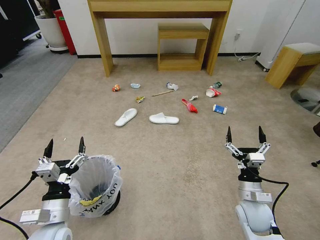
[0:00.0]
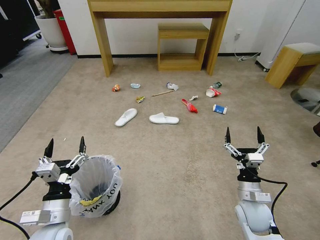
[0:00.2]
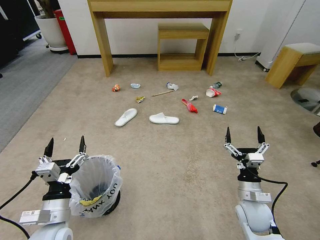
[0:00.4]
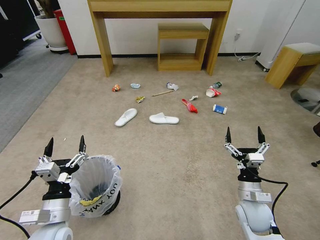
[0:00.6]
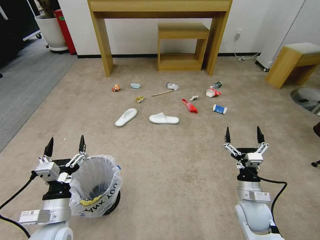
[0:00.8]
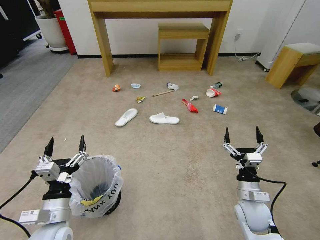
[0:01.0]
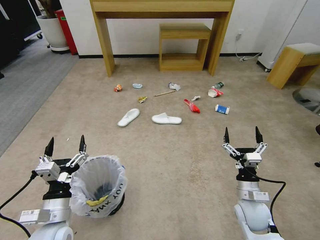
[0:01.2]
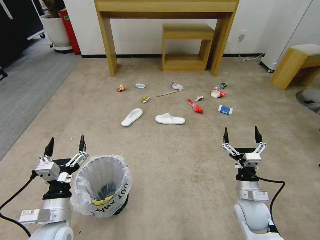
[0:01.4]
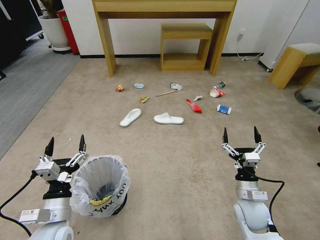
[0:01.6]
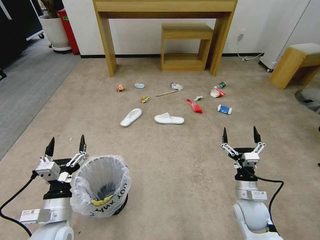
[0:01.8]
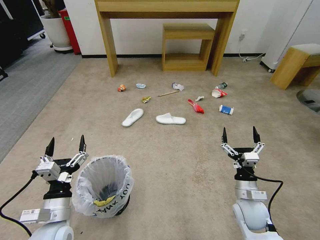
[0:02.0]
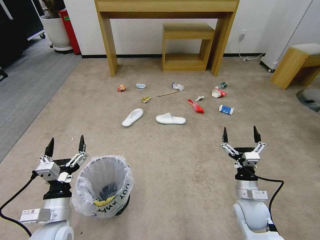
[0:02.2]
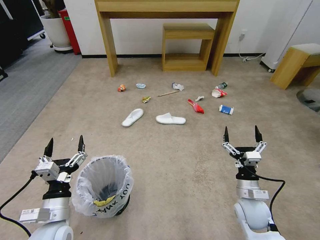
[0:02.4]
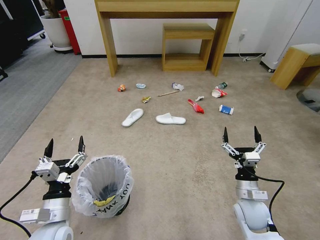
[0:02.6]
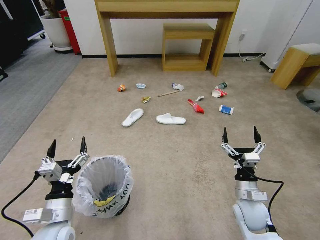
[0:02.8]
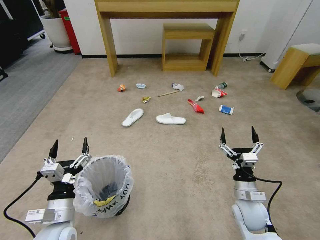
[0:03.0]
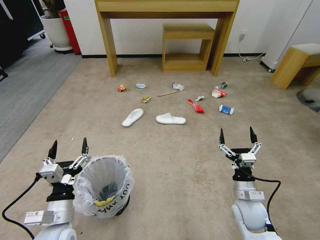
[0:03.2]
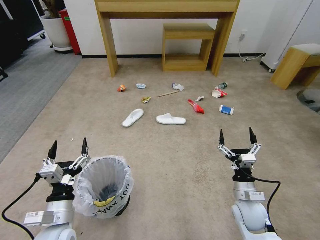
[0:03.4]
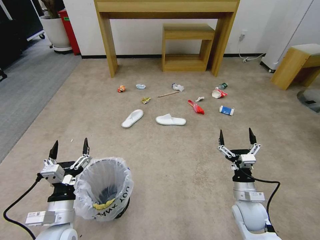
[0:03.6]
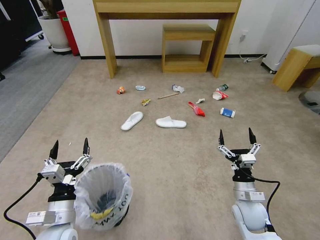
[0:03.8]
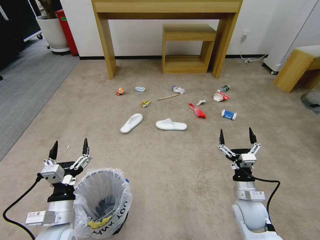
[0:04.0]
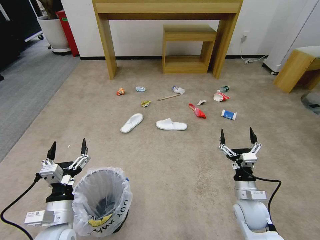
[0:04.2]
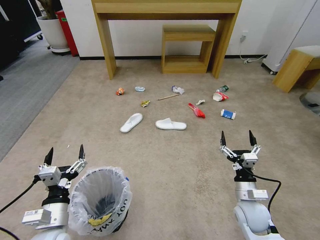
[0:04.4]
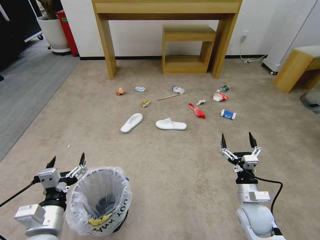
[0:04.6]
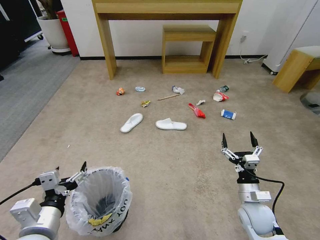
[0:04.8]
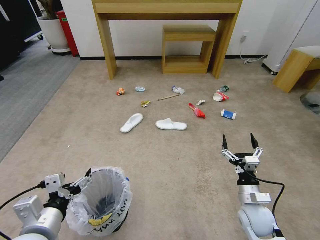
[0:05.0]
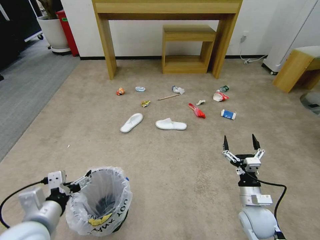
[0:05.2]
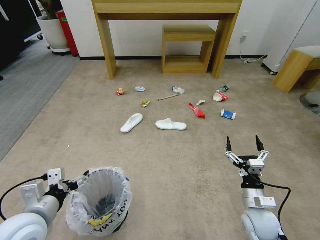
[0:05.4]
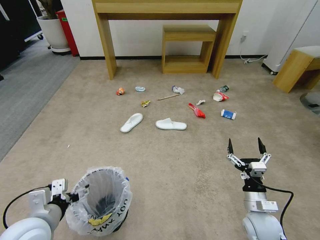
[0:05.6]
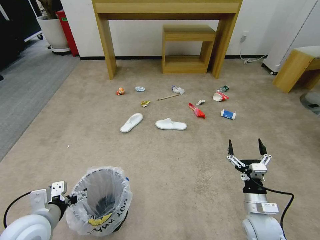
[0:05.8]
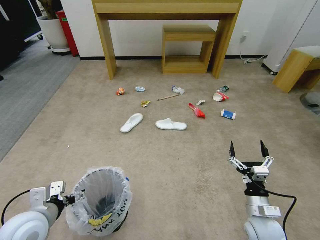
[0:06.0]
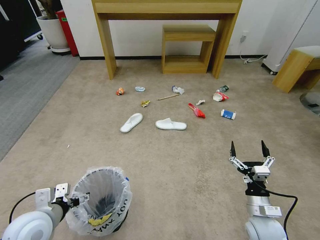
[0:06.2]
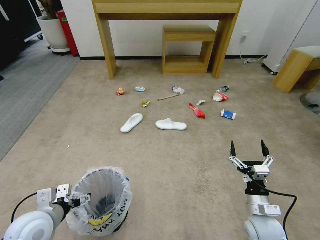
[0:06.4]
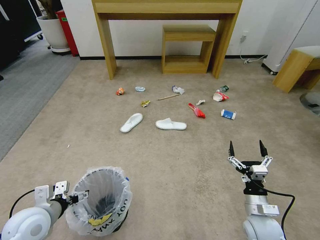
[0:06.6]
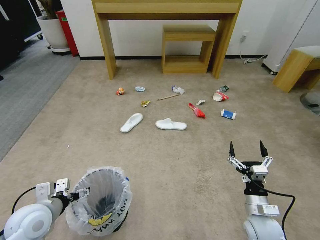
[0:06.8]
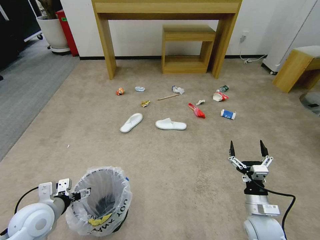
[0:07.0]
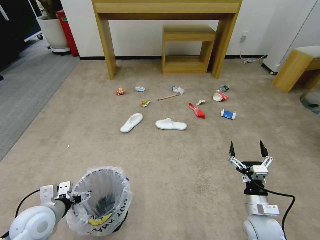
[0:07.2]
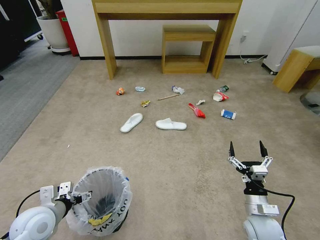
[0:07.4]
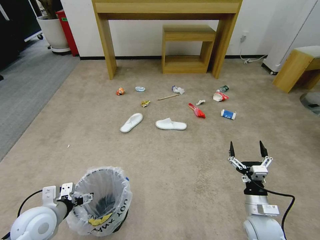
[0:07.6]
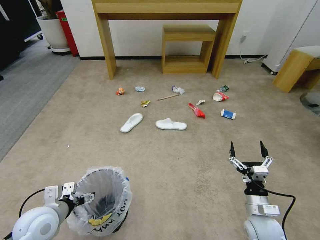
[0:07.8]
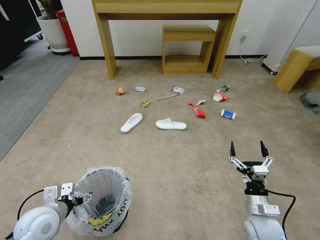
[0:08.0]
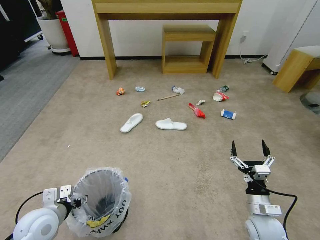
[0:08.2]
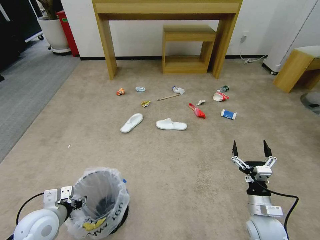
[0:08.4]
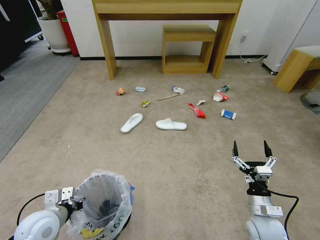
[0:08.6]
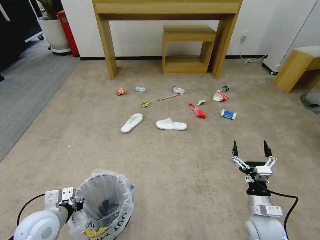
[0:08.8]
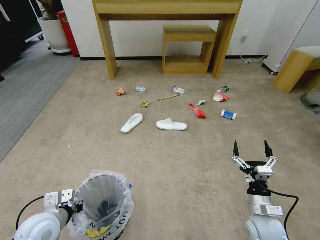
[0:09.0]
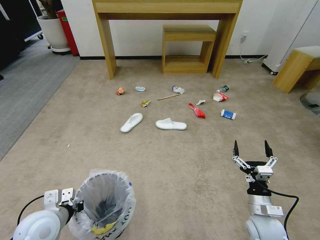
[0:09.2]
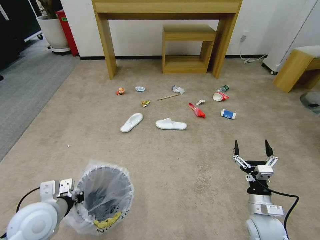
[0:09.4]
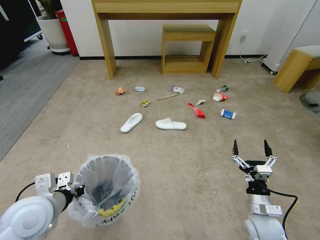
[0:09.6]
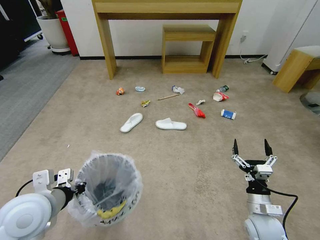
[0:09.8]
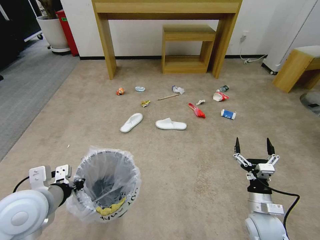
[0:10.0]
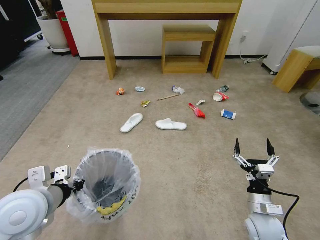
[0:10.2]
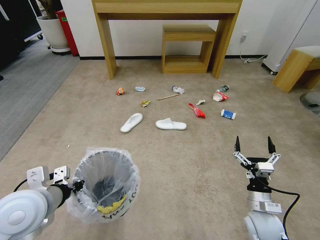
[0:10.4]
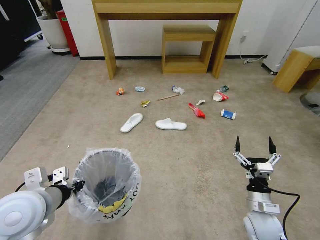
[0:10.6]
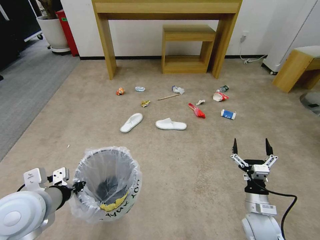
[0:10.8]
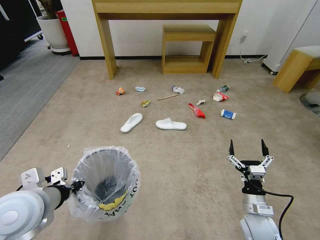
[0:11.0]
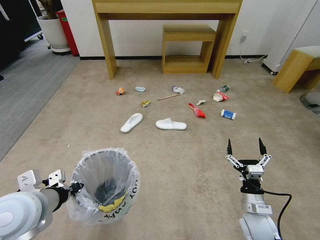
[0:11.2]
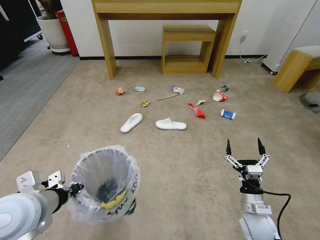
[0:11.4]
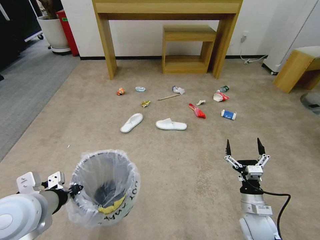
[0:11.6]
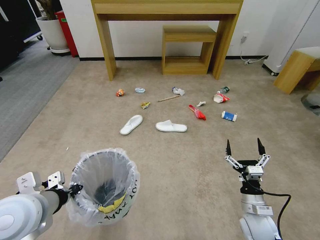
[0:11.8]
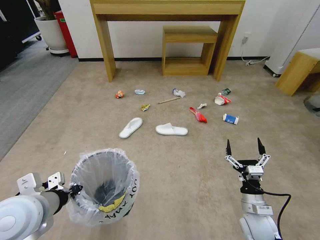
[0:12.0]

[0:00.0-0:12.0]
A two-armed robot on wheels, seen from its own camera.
Task of the whole recording: Pick up the trash bin and place the garbage on the floor into it.
0:01.6 to 0:03.0: The two grippers keep their place.
0:03.0 to 0:04.4: The grippers move only a little.
0:04.4 to 0:06.0: The left gripper changes place by roughly 5 cm.
0:06.0 to 0:07.6: There are only small adjustments of the grippers.
0:07.6 to 0:09.0: The left gripper closes its fingers.
0:09.0 to 0:10.4: The left gripper heads upward, covering some 15 cm.
0:10.4 to 0:12.0: The grippers move only a little.

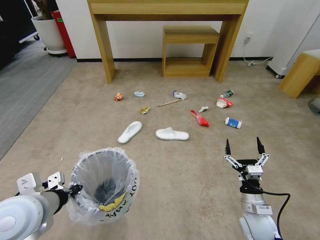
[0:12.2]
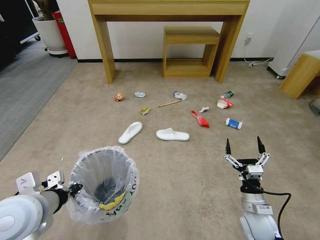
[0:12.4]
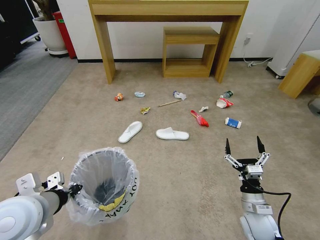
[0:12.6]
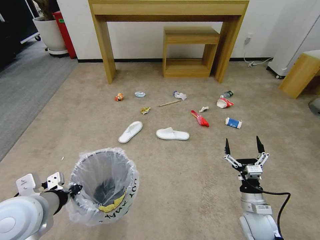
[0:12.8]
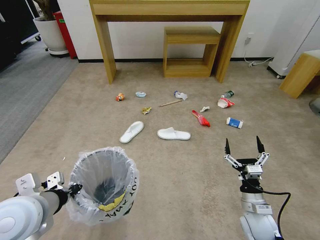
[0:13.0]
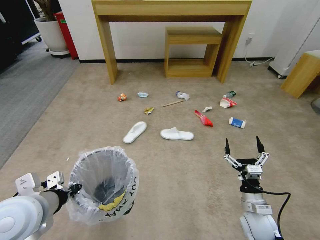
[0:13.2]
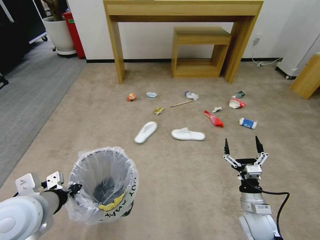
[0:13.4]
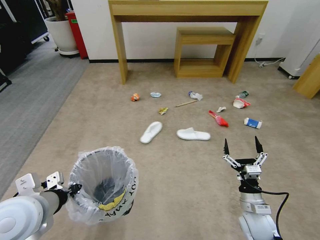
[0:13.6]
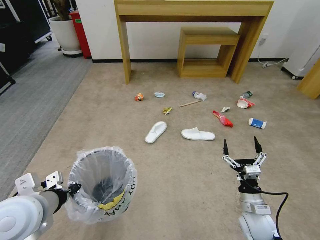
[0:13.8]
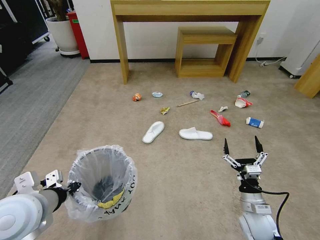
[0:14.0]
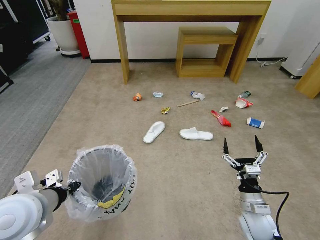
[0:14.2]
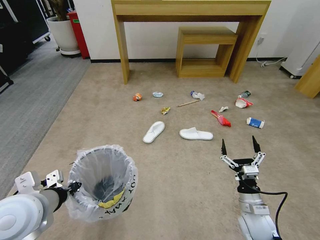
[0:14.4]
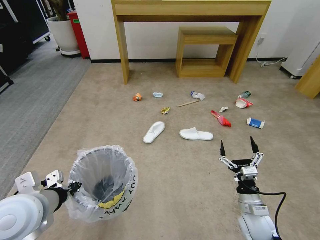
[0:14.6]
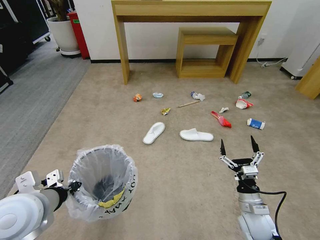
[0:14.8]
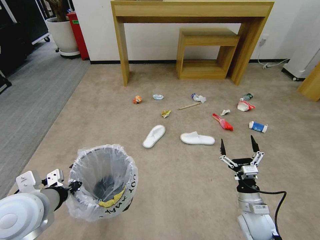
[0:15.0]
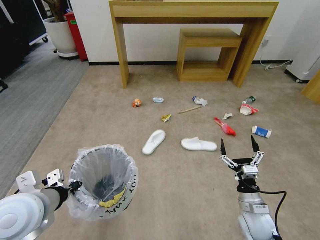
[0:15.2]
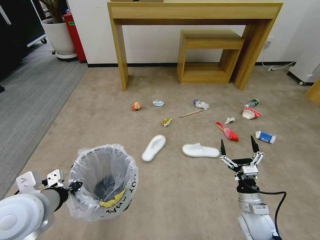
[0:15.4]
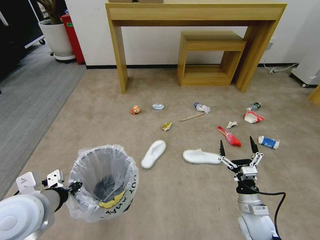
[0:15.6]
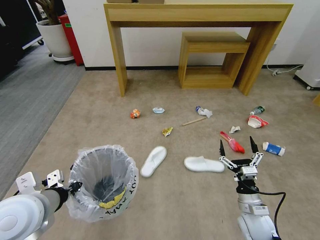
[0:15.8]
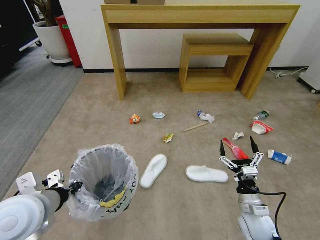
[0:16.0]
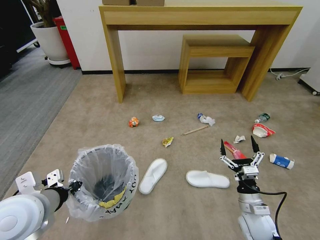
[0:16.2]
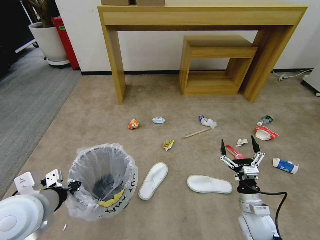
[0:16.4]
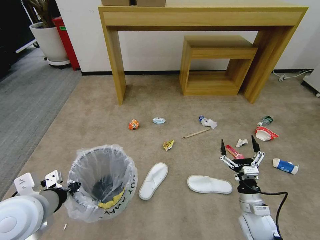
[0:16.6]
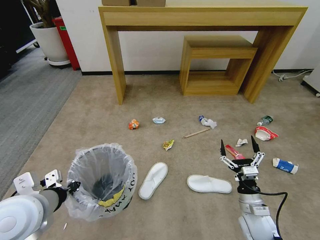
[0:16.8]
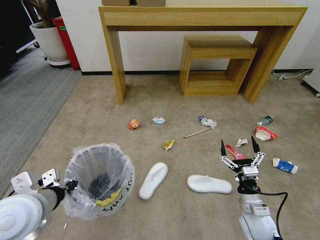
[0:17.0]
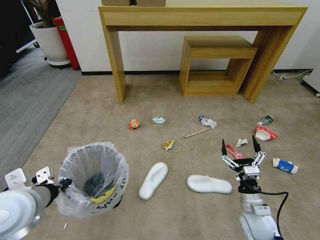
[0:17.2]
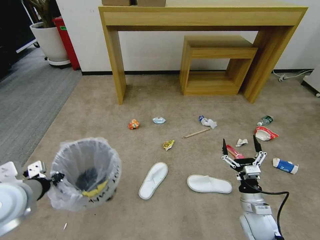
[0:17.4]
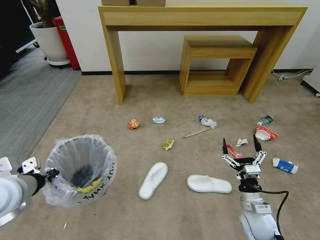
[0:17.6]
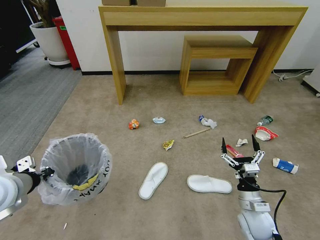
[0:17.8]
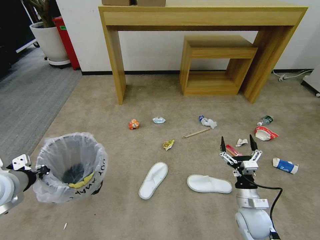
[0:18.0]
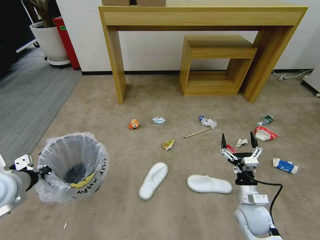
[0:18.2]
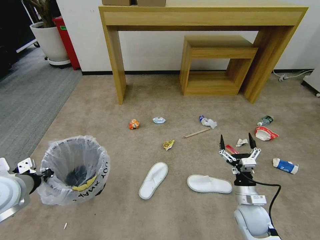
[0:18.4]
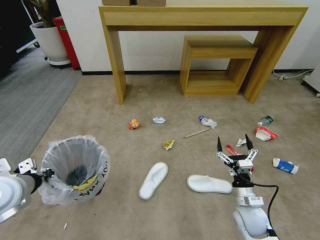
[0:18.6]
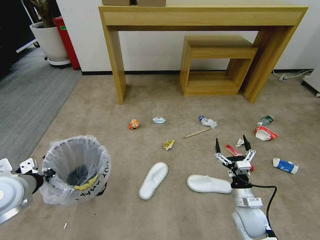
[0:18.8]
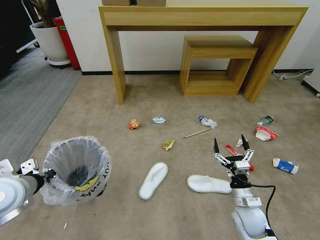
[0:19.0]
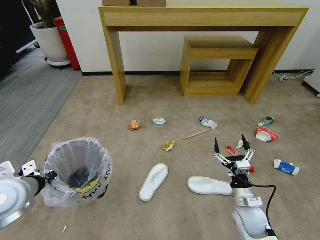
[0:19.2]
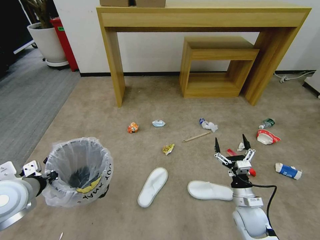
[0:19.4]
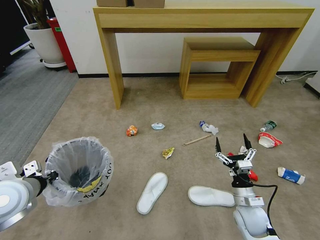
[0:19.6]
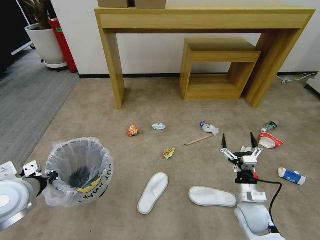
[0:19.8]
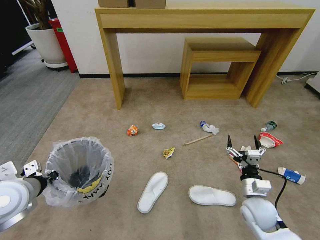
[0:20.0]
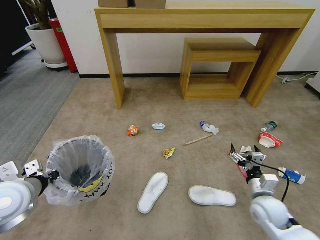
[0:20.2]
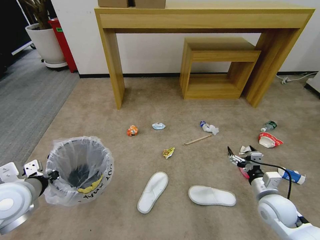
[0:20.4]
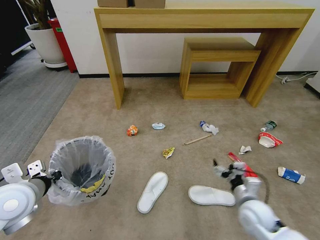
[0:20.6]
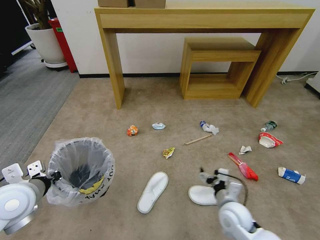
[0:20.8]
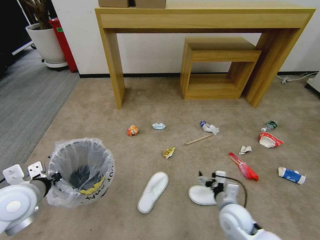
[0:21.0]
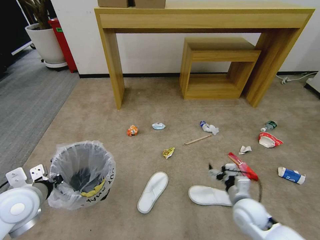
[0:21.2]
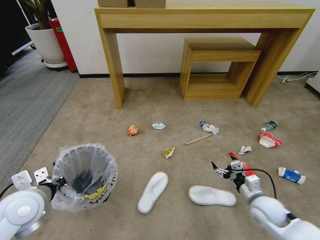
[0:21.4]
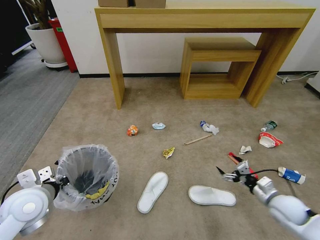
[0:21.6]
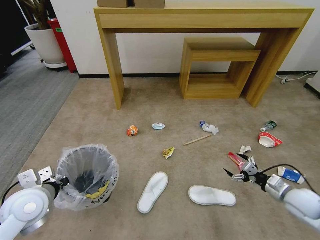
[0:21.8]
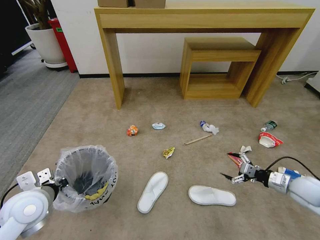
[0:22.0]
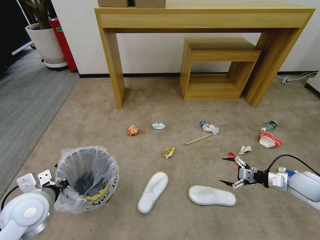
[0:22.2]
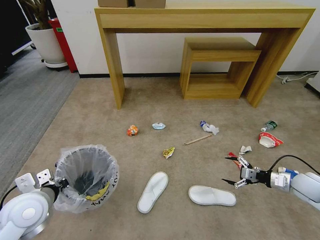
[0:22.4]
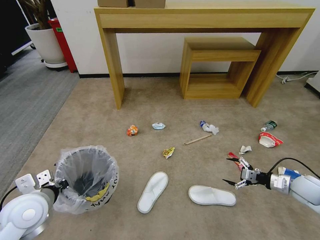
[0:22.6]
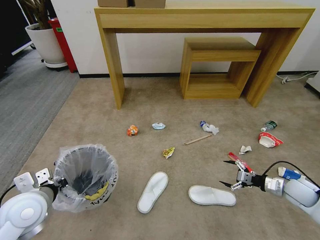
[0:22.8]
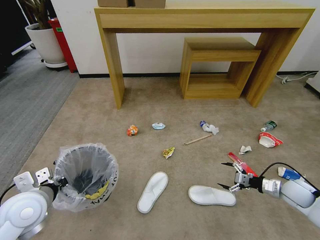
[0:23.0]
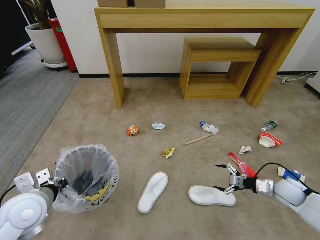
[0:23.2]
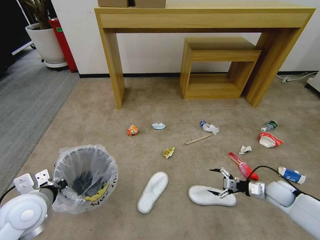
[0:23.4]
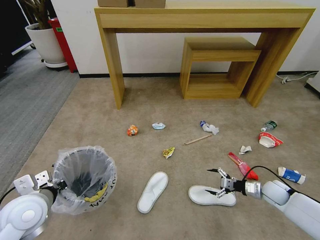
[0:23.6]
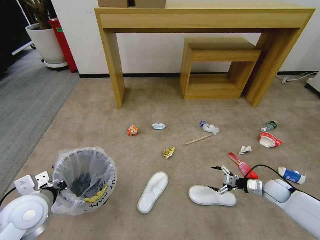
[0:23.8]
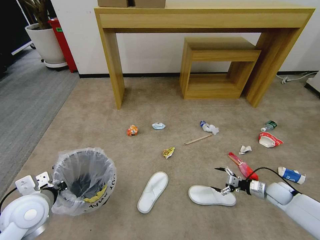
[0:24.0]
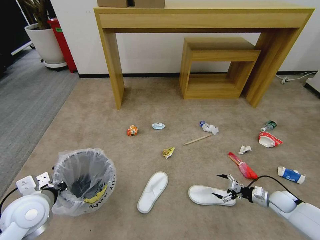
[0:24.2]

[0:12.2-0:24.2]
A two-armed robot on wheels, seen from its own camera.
Task of the whole recording: Pick up the trash bin and place the garbage on the floor into it.
0:13.8 to 0:15.2: The two grippers keep their place.
0:16.6 to 0:18.2: The left gripper travels to the left and forward by about 10 cm.
0:19.8 to 0:21.2: The right gripper moves left and right over some 15 cm, changing direction 2 times.
0:21.2 to 0:22.6: The right gripper heads to the right, covering roughly 25 cm.
0:22.6 to 0:24.2: The right gripper travels downward by some 10 cm.
